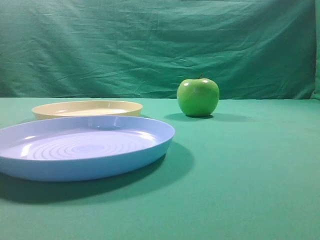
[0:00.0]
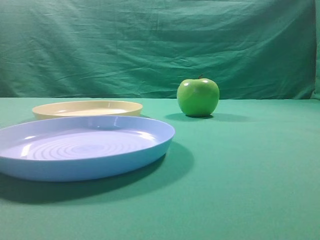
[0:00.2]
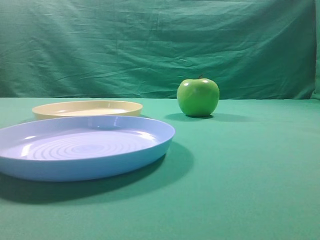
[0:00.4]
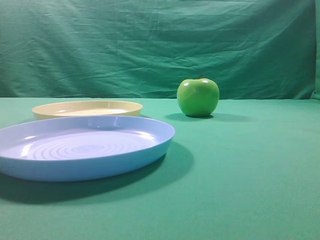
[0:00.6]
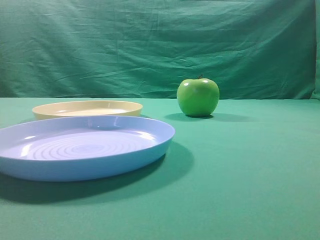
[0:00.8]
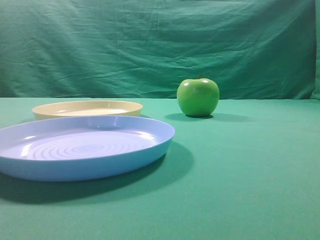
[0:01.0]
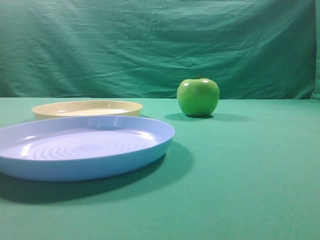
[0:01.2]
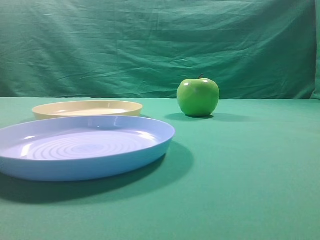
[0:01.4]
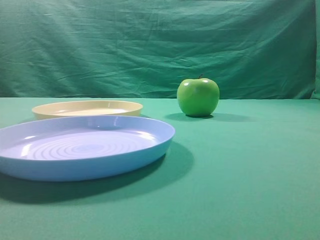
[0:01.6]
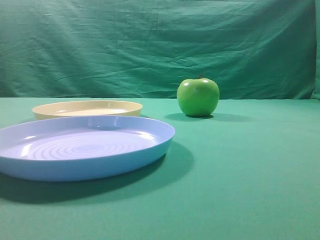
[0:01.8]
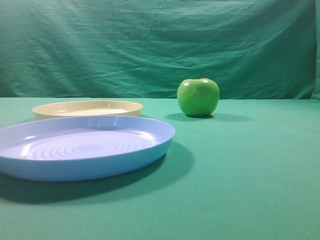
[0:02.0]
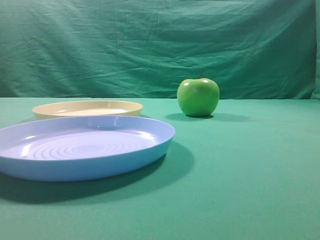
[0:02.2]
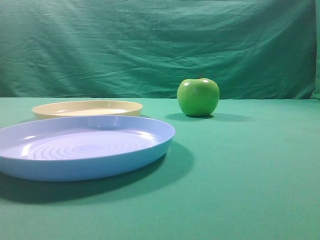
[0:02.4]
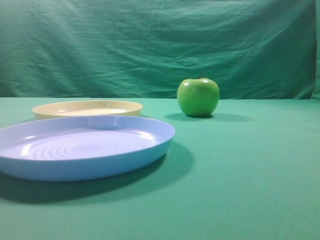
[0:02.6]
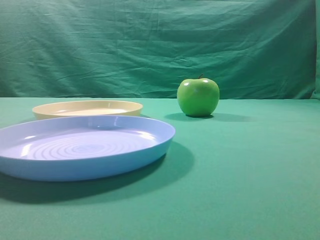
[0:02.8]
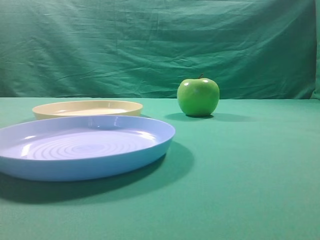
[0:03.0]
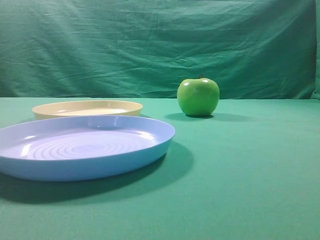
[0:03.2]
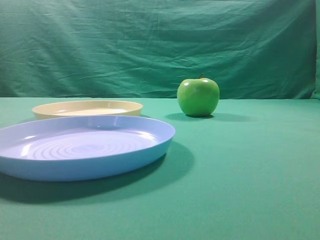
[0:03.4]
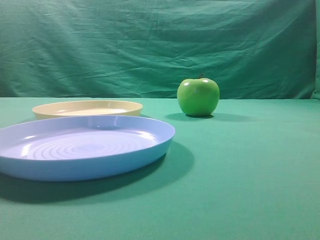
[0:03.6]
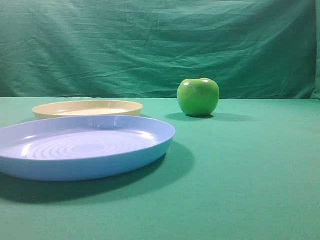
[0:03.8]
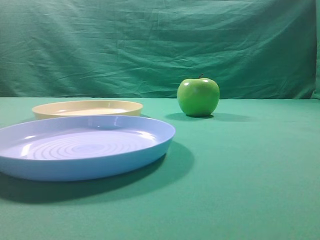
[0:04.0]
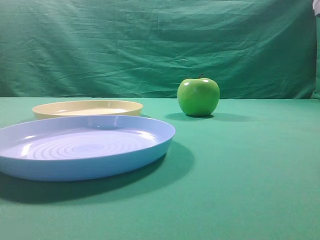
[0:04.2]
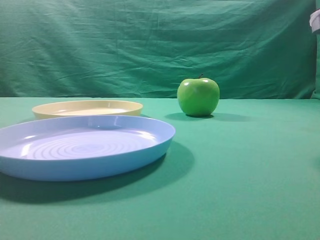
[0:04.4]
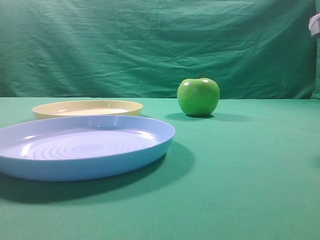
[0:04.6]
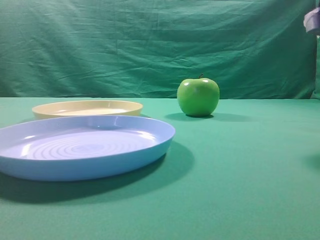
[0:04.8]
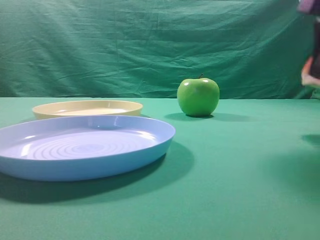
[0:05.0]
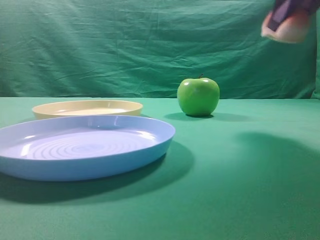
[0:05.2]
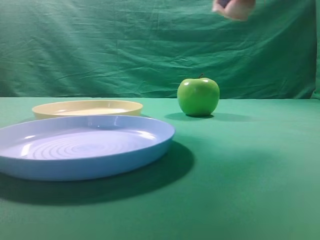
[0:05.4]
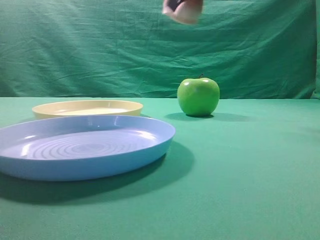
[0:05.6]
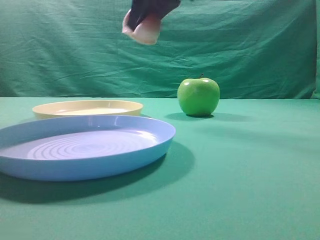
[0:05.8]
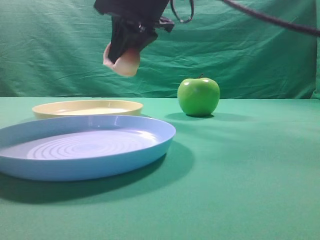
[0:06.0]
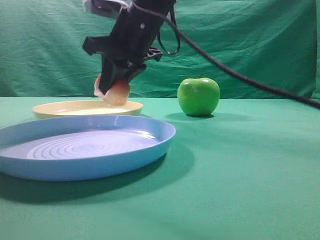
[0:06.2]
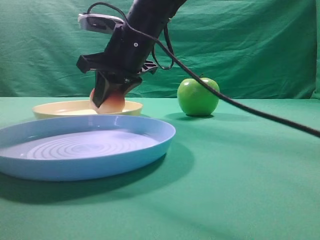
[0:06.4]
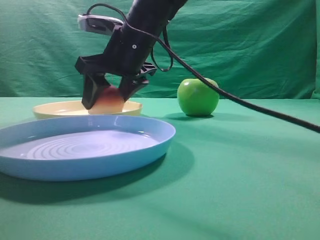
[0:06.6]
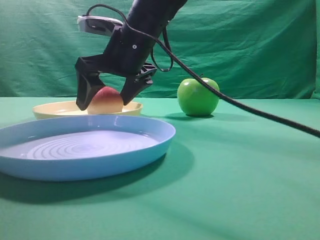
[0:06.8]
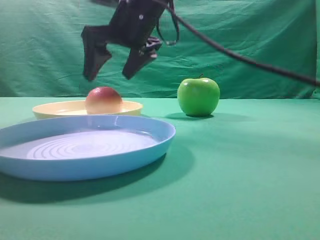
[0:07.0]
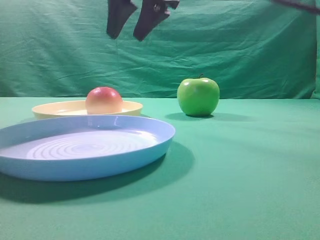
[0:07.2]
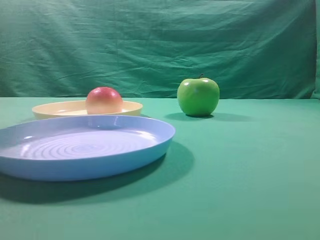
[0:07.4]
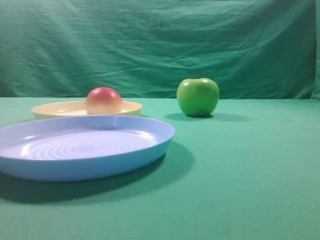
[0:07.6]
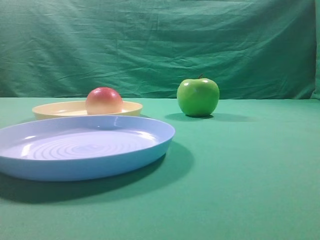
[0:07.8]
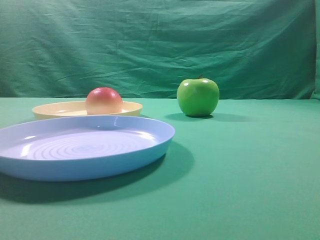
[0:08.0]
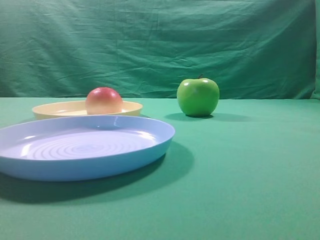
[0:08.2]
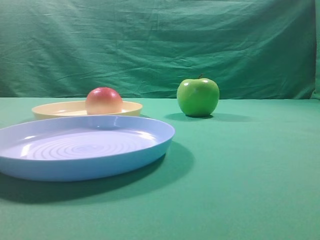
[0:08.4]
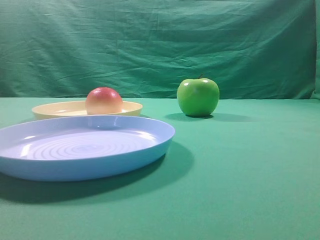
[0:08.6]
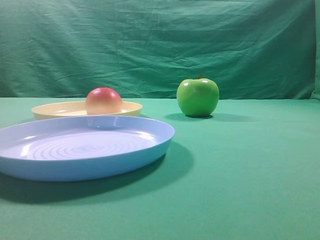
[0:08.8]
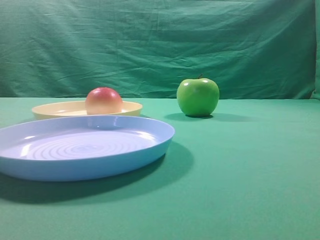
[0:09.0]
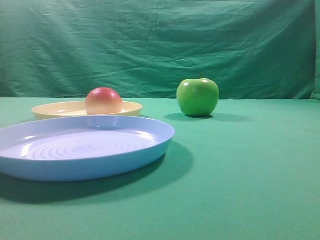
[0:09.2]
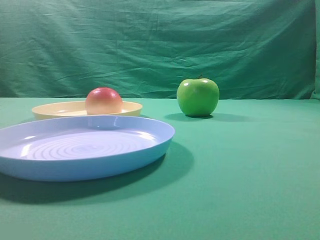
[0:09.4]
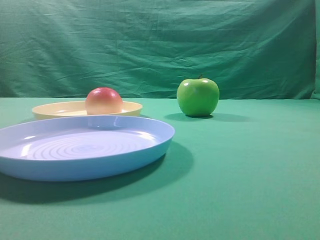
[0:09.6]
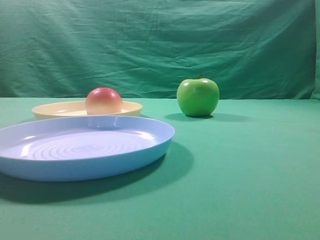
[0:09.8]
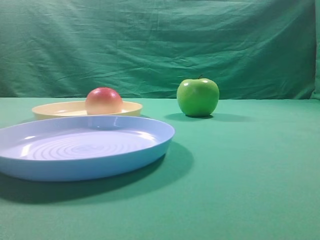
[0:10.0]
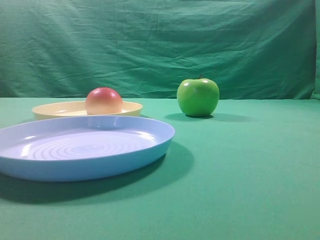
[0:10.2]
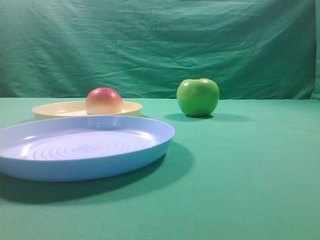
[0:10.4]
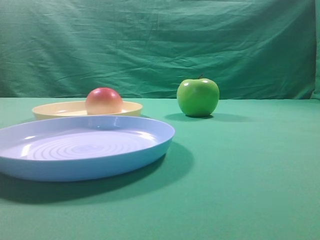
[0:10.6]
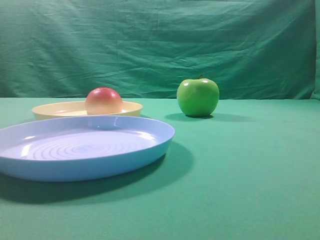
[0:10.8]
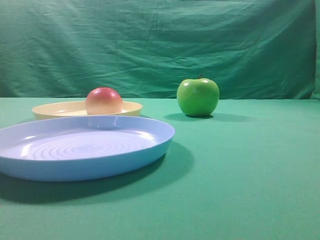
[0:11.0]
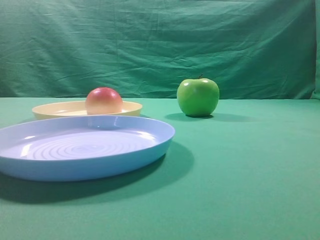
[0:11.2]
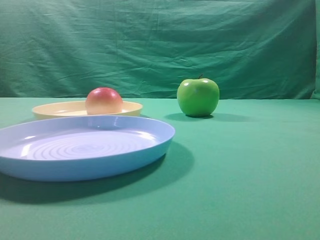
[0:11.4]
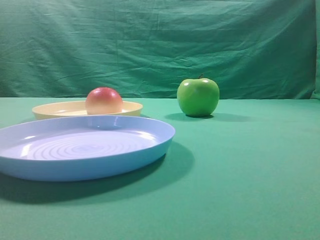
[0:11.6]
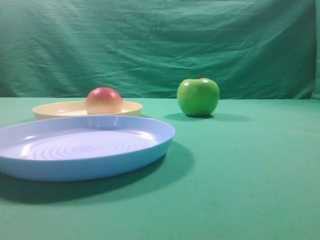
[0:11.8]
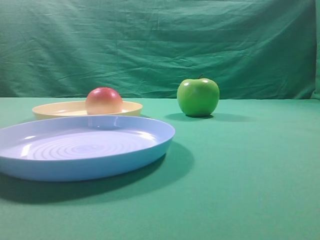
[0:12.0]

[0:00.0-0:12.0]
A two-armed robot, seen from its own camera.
Step, 0:05.0 to 0:07.0: Place the picked object on the yellow plate.

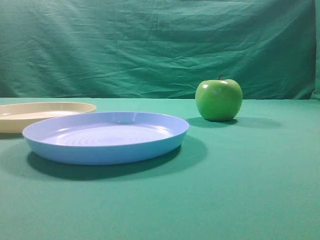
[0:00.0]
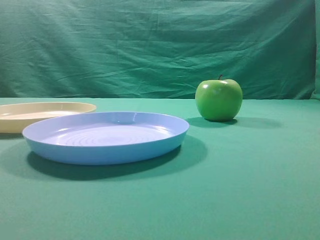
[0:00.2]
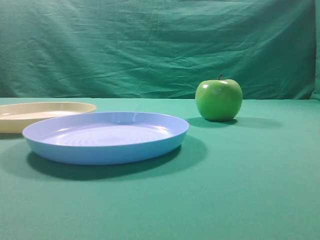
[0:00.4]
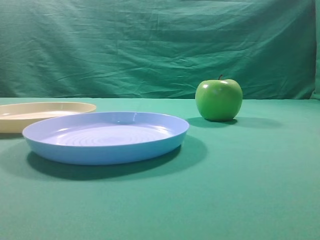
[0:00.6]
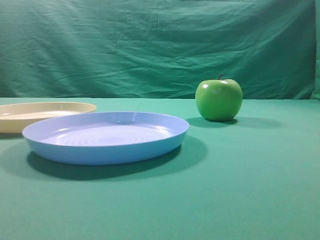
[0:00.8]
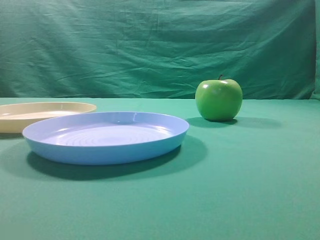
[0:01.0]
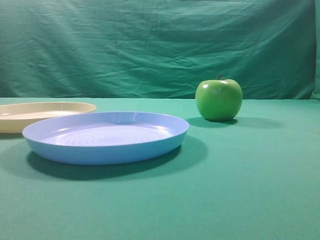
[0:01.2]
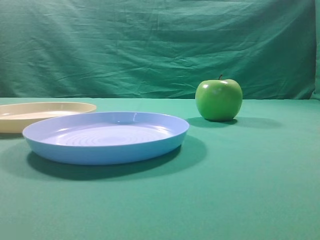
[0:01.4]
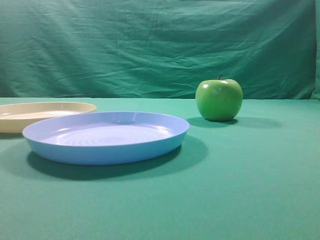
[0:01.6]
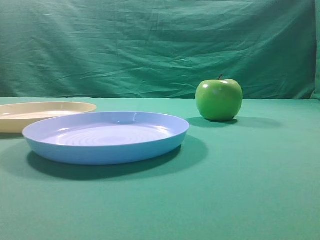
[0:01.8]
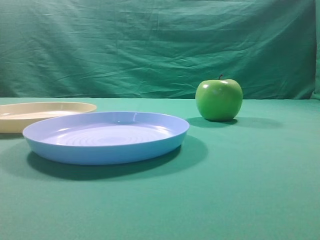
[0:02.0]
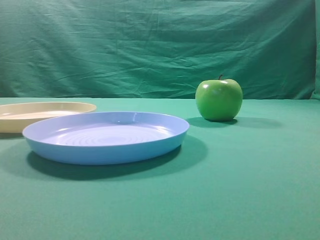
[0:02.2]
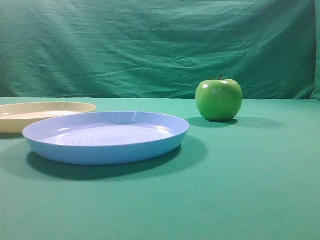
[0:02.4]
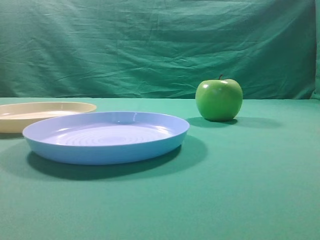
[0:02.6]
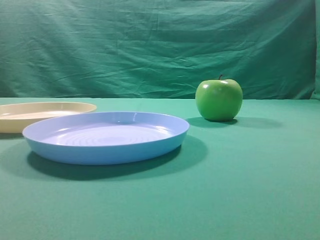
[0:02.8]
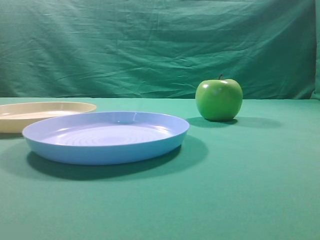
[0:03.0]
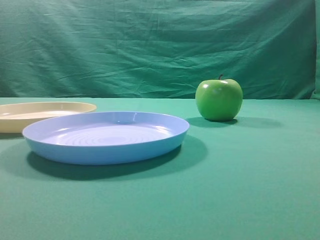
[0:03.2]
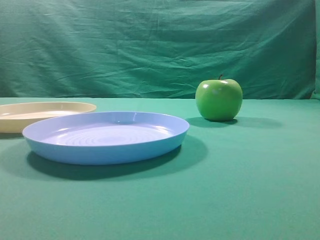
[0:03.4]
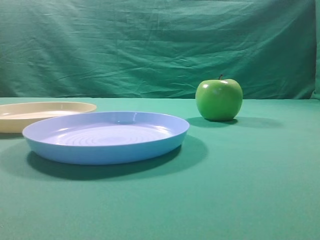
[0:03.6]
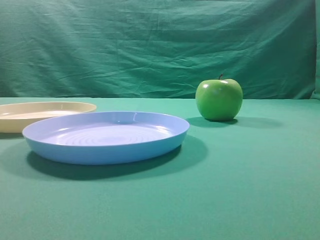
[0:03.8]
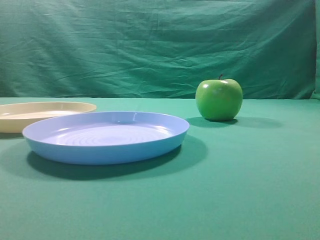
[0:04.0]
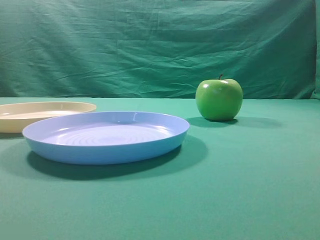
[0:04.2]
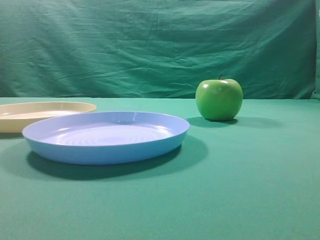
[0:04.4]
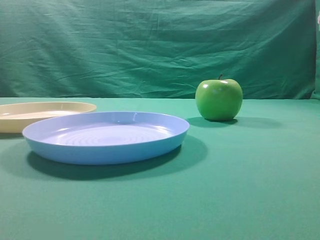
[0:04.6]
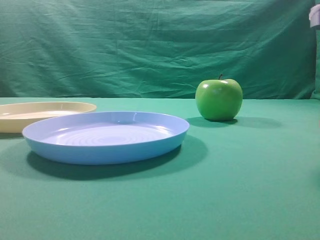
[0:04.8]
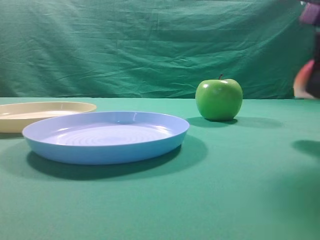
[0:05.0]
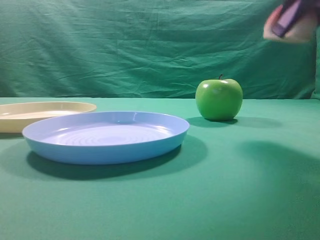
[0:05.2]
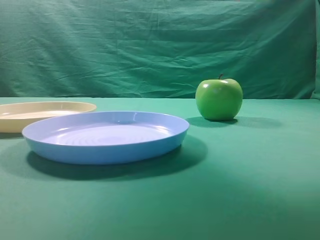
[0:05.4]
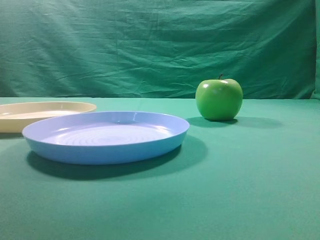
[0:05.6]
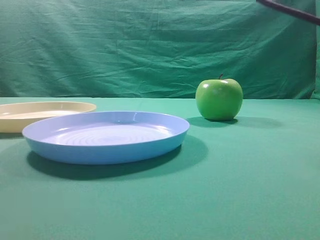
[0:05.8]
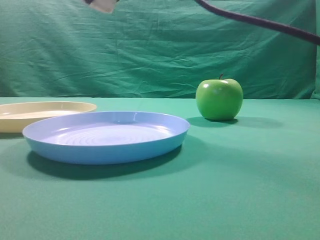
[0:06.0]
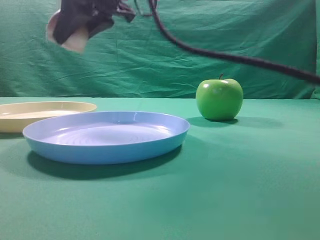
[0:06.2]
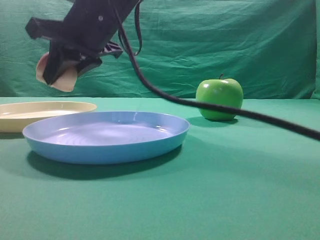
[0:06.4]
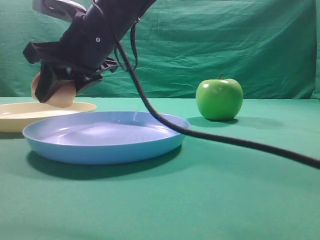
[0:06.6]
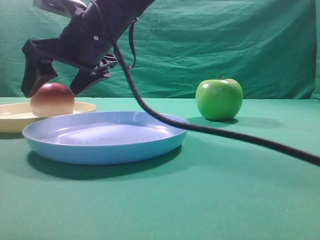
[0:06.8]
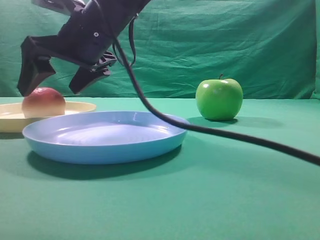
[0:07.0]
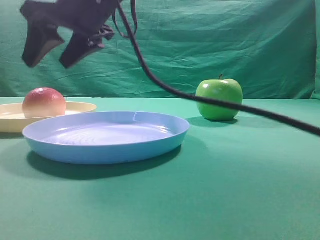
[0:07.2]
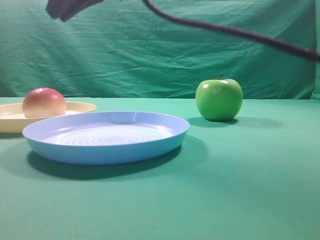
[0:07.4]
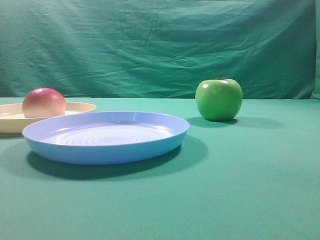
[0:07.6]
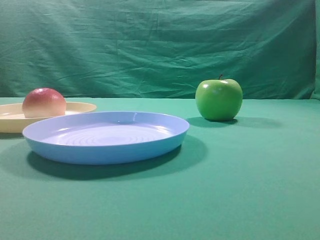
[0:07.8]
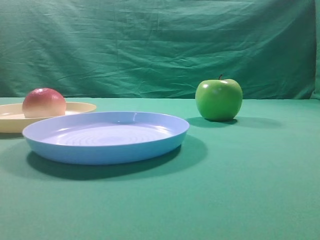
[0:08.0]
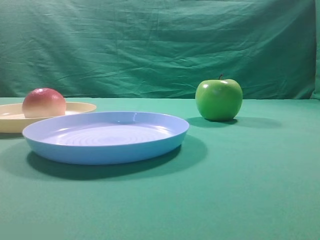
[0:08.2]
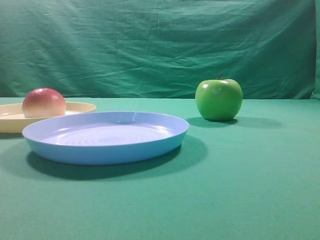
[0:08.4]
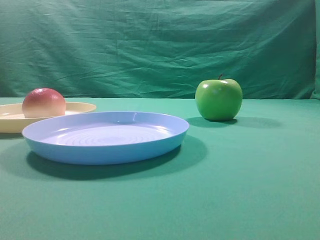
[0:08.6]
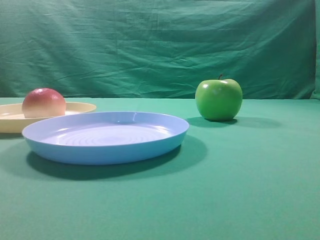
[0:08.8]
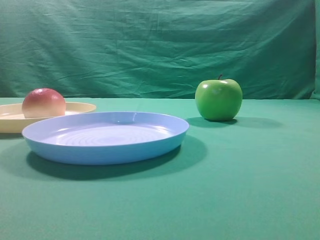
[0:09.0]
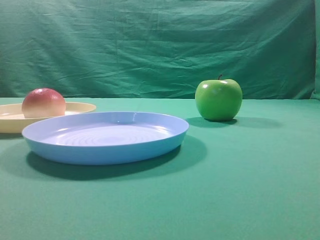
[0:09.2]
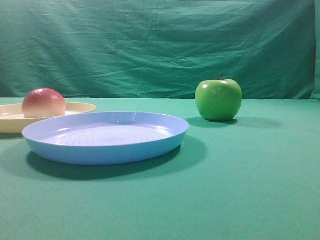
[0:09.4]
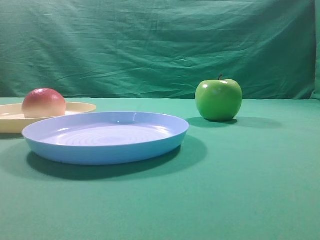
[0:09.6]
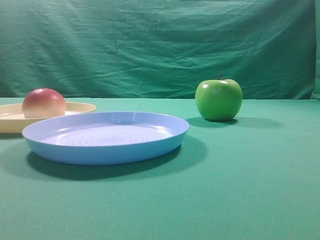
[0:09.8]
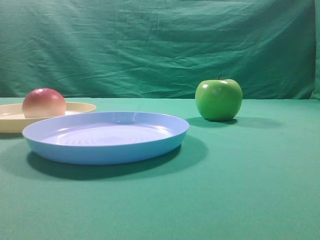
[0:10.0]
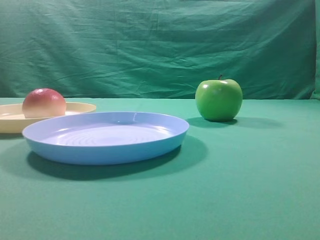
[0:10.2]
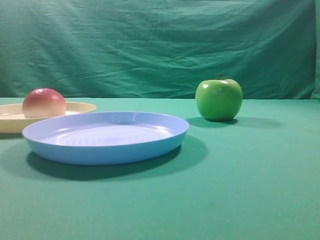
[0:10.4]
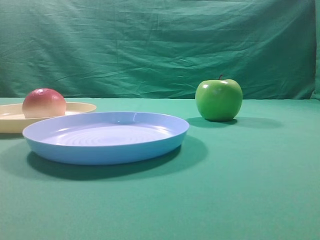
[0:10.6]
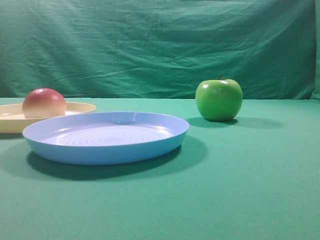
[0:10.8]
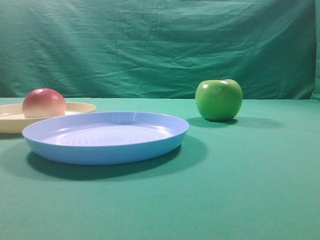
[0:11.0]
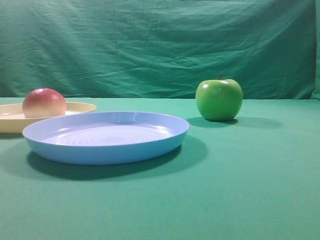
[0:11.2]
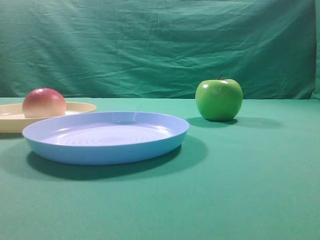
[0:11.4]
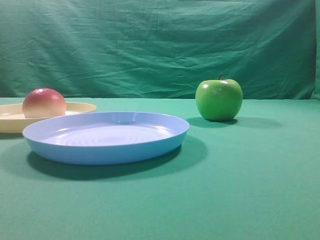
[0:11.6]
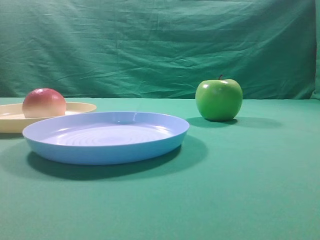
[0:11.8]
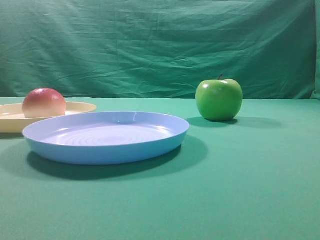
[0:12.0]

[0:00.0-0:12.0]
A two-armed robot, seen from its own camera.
Step, 0:05.2 to 0:07.0: Place the picked object on the yellow plate.
